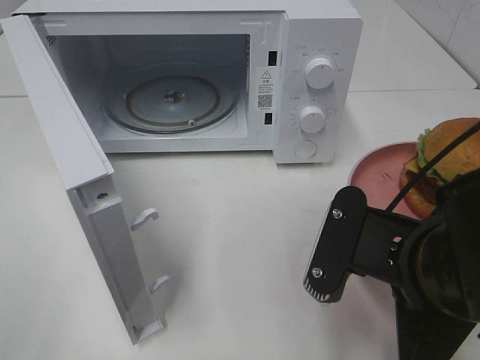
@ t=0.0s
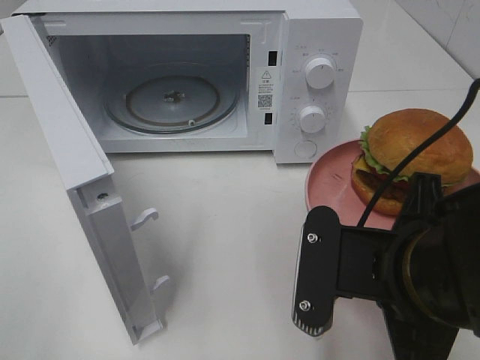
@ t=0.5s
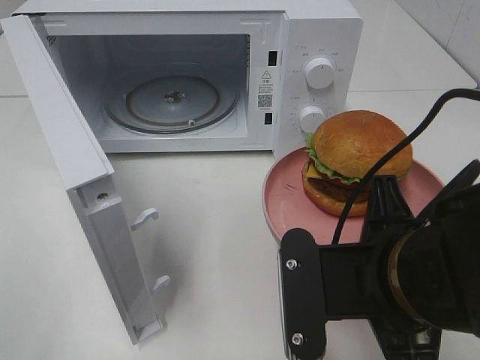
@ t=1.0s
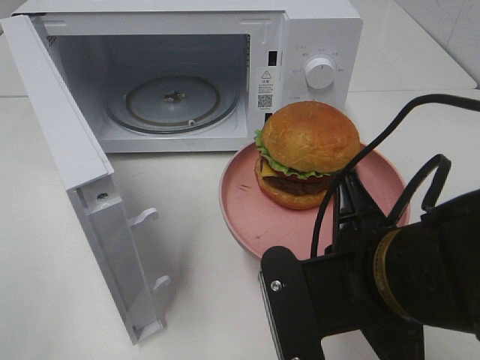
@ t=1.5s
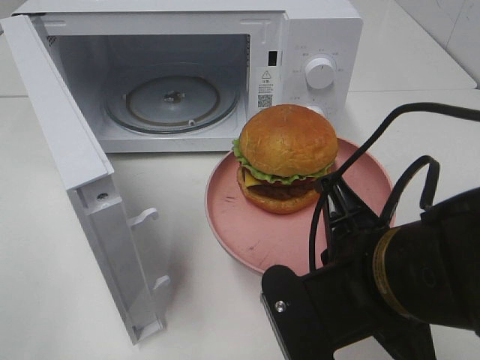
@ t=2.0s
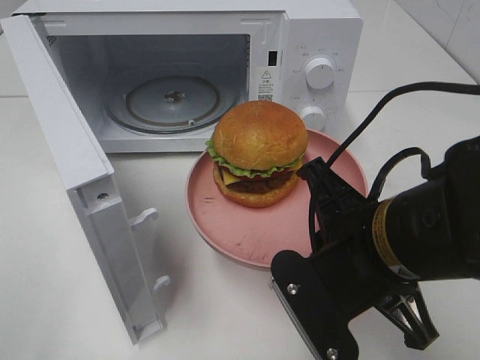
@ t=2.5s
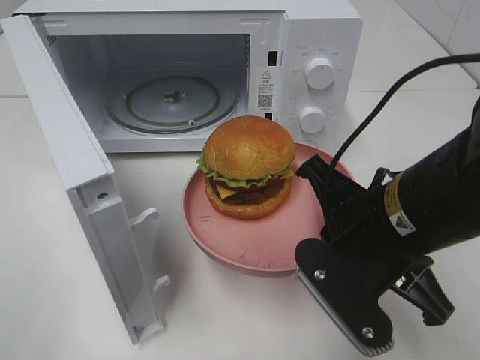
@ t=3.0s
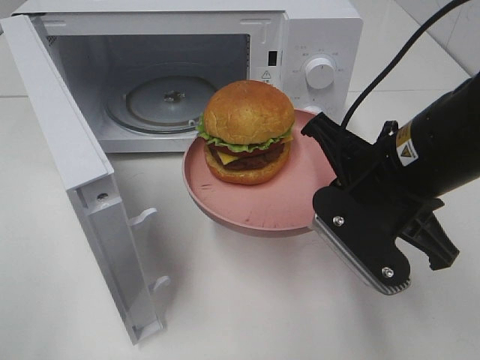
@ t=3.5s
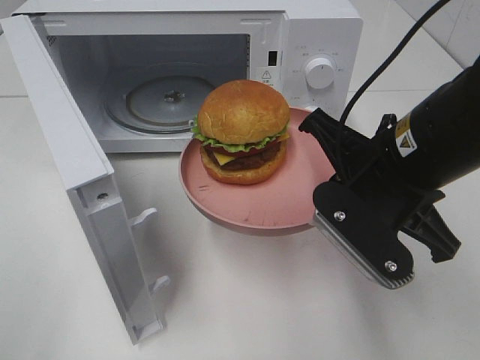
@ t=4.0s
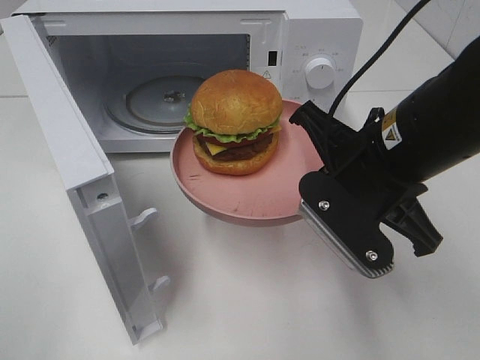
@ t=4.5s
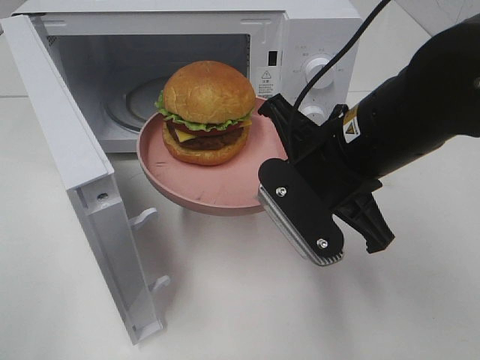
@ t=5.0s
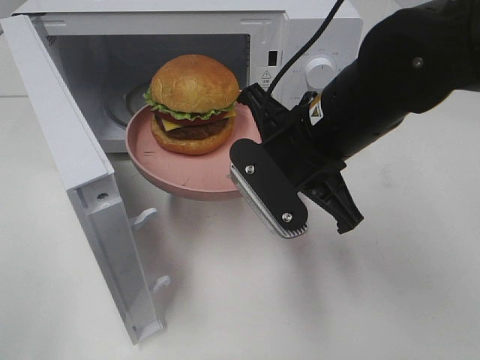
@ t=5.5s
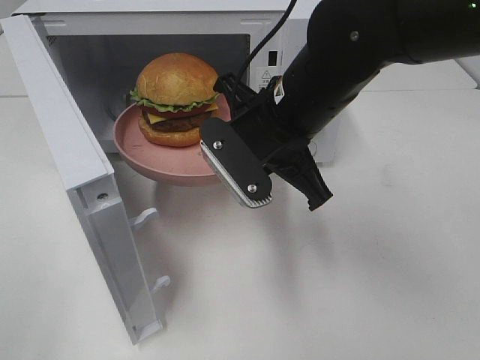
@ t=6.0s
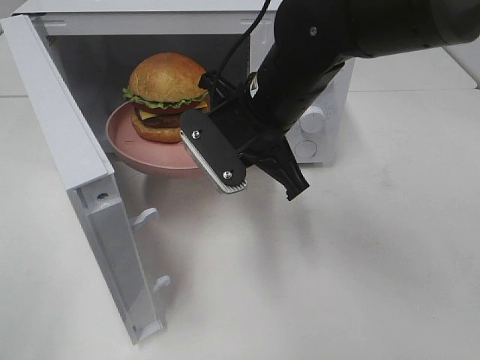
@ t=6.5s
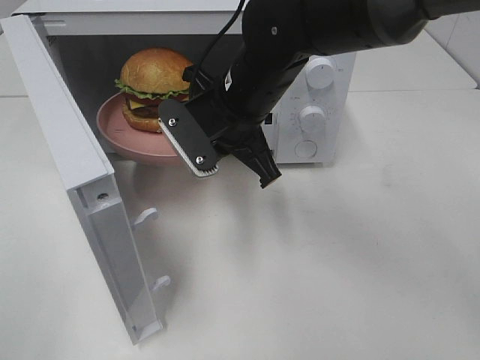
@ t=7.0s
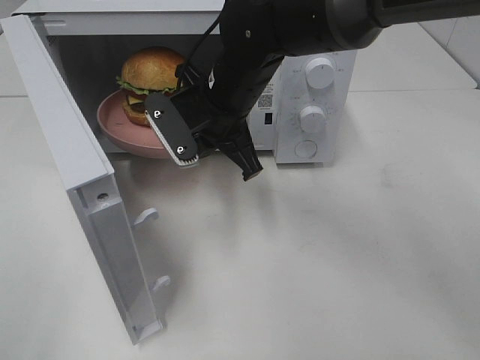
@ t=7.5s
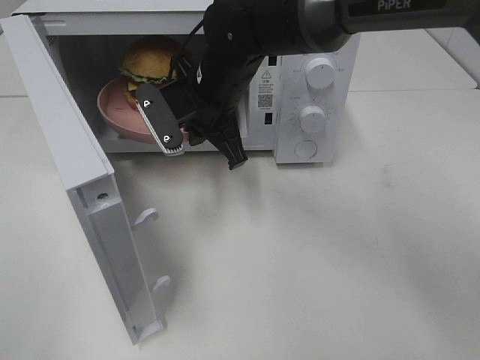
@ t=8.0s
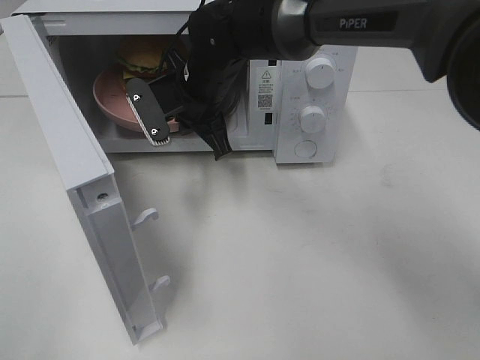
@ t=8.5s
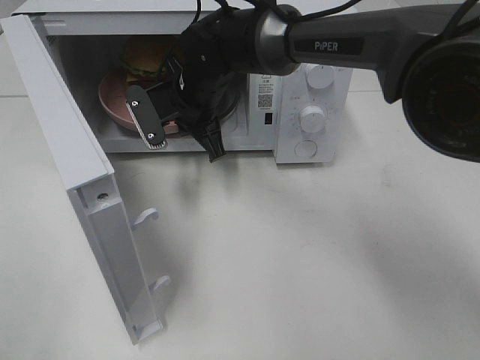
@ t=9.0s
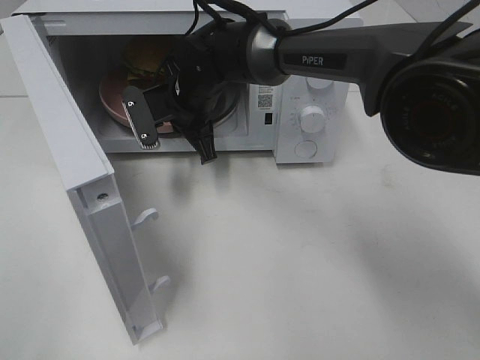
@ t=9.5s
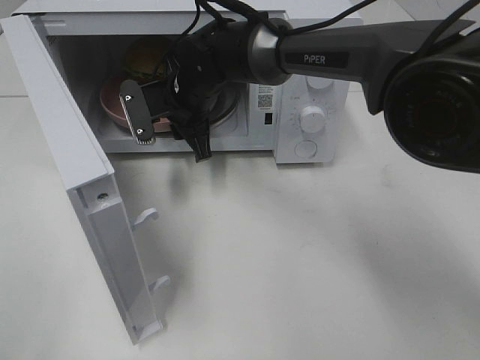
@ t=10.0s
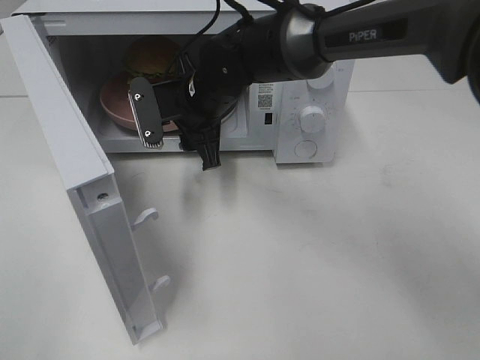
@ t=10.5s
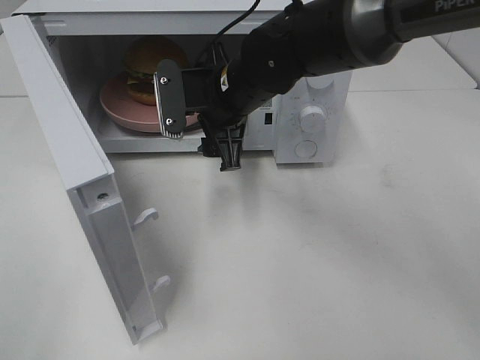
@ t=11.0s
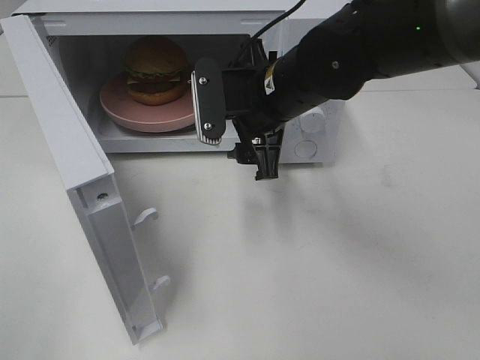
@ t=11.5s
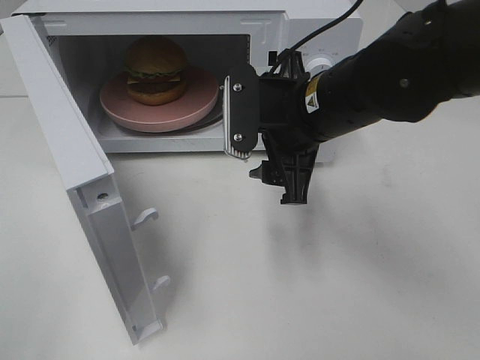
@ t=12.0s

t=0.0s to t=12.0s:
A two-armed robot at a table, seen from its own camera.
Task of the whole recording: Heat the burger.
Step, t=0.0s to t=10.0s: Right hand: place the plate in the microwave.
t=2.0s to t=4.0s: The right gripper travels forward by approximately 10 cm.
t=4.0s to t=6.0s: The right gripper is displaced to the left and forward by some 10 cm.
t=6.0s to t=8.0s: The right gripper travels forward and to the left by about 10 cm.
t=8.0s to t=10.0s: The right gripper ends up about 5 cm from where it was, and opens up.
t=10.0s to t=12.0s: The right gripper is displaced backward, to the right and upward by some 20 cm, and opens its fingers.

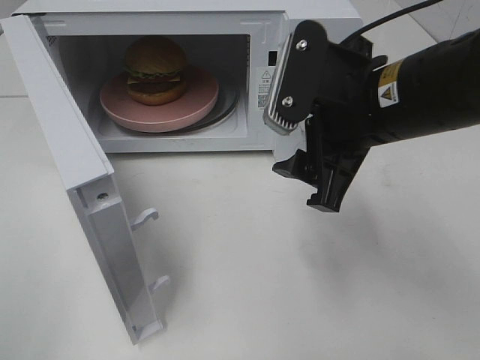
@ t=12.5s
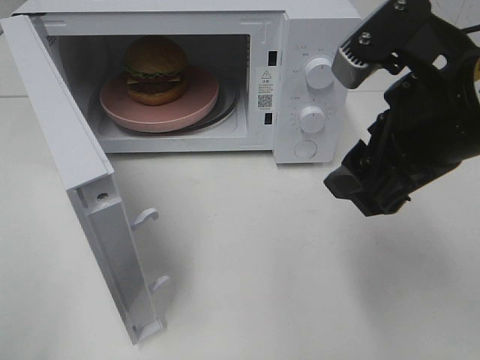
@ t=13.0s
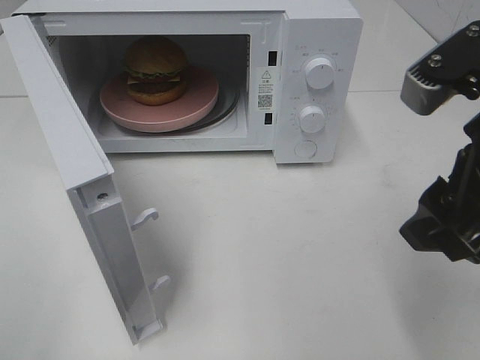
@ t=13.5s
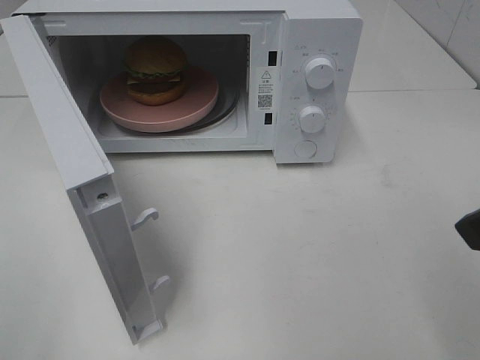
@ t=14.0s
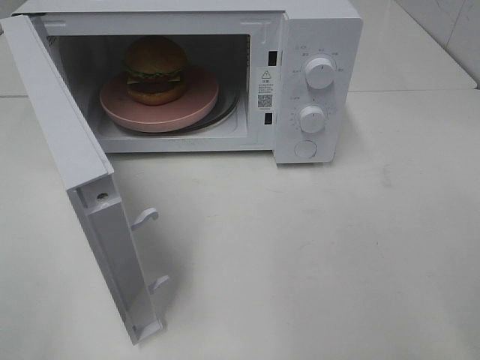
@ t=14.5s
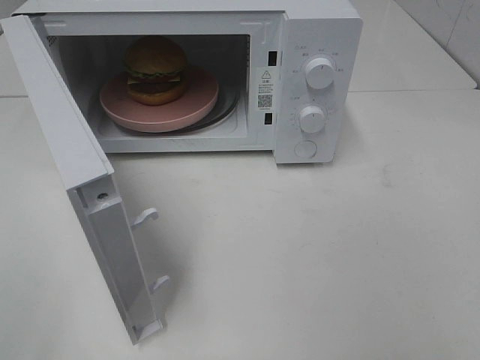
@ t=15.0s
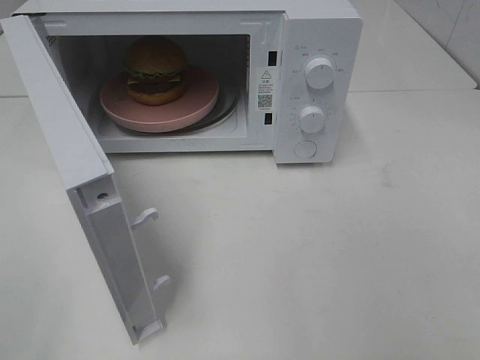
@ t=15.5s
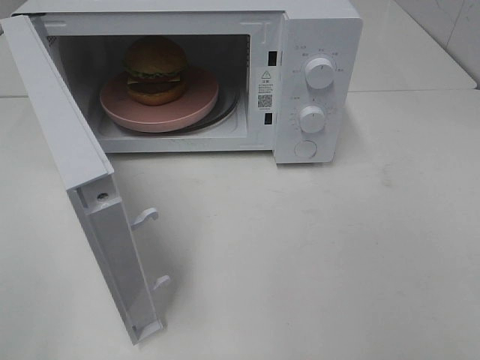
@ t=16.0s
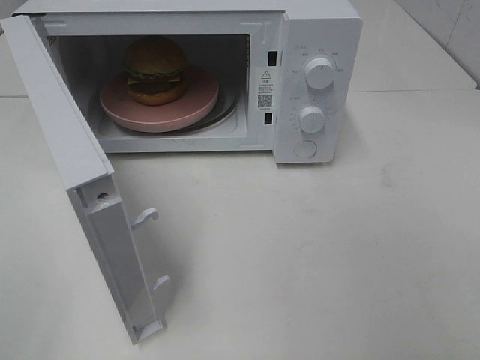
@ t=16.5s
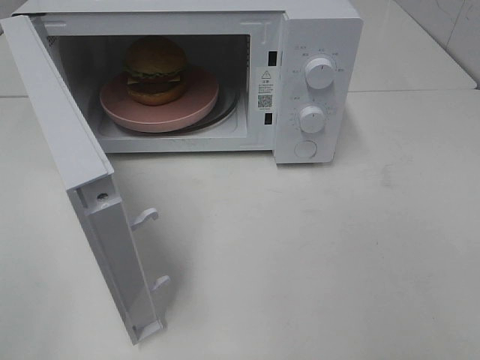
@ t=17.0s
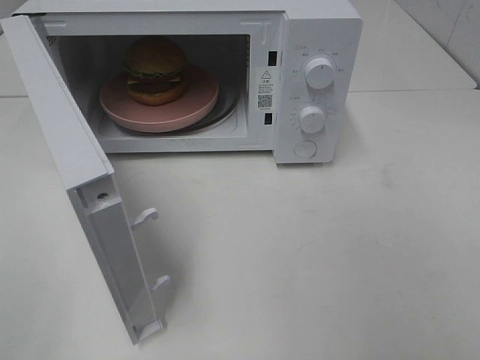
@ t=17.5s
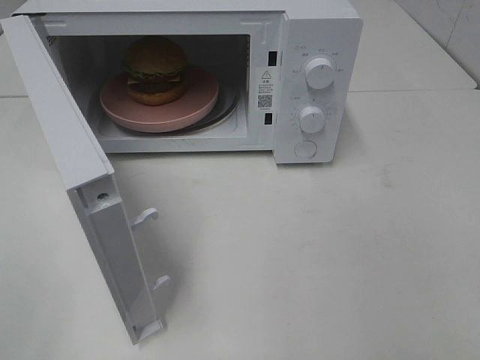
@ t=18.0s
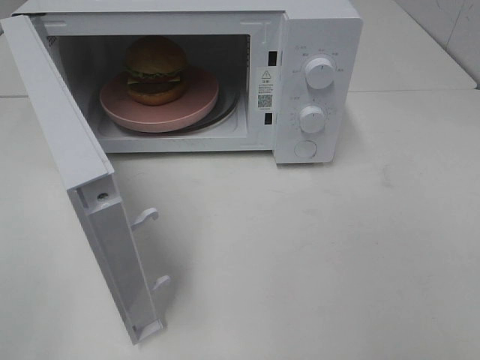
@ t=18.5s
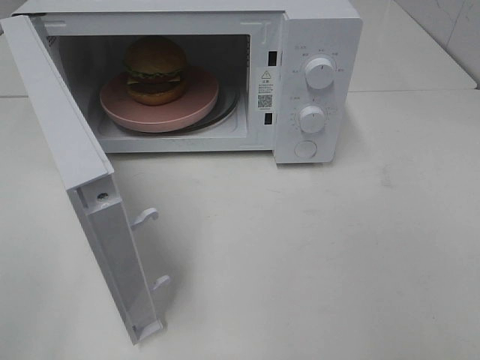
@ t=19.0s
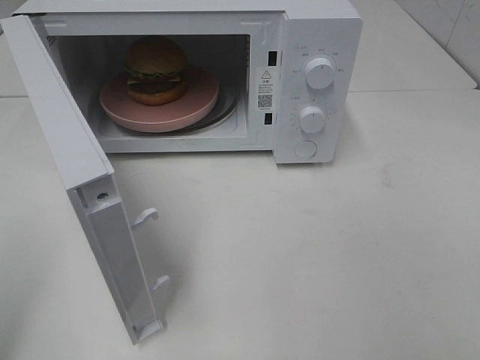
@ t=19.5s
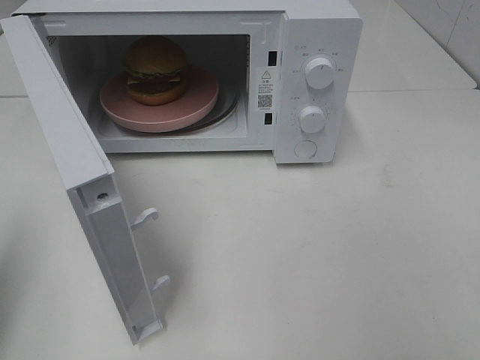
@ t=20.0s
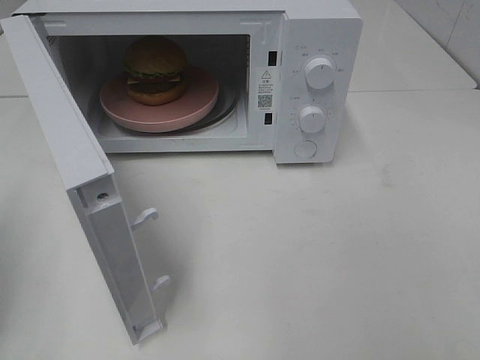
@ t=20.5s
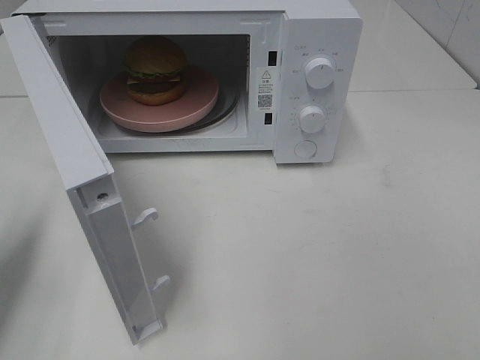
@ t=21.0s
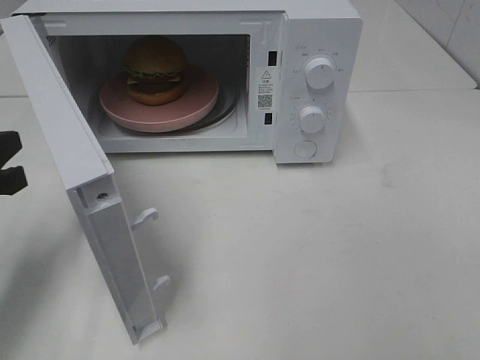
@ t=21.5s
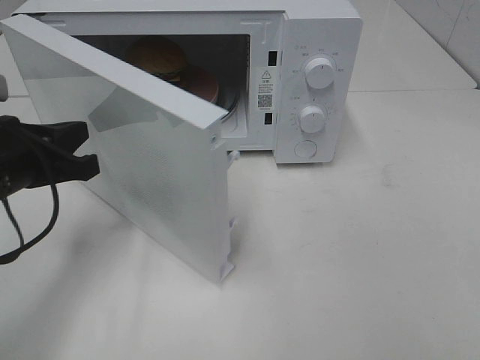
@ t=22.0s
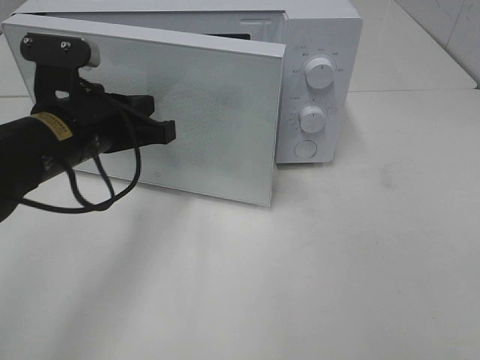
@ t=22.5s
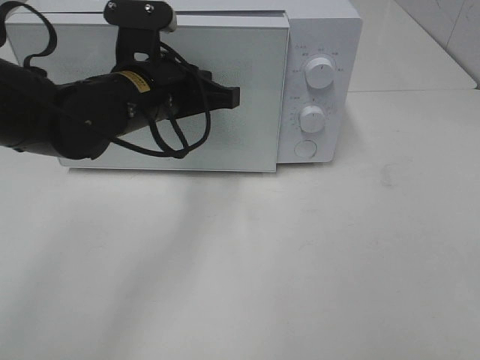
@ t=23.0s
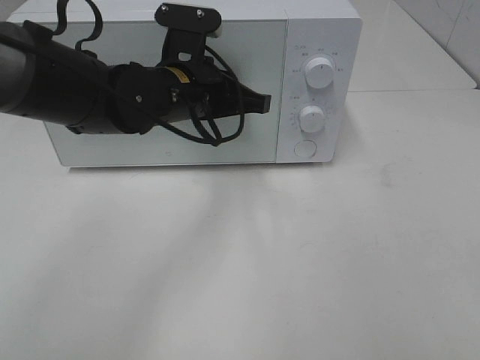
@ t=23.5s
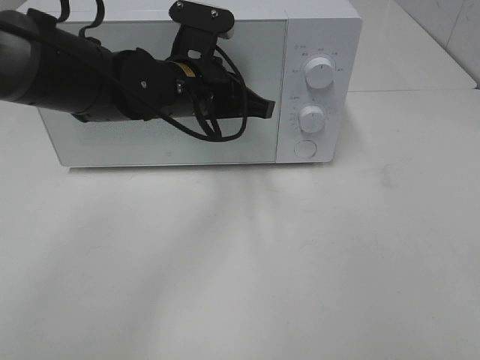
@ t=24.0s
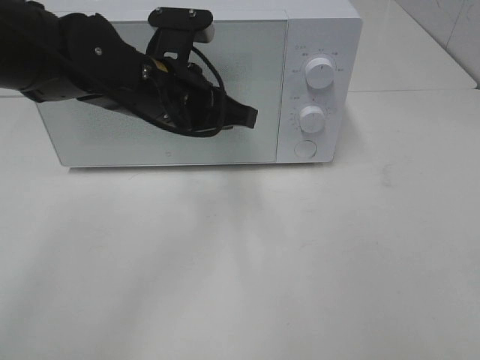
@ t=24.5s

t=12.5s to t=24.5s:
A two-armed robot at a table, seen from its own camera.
Task of the whole recording: Heat the burger.
t=12.5s to t=14.5s: The right gripper shifts about 20 cm to the right, backward and upward.
t=16.5s to t=18.5s: Both grippers stay about where they are.
t=20.5s to t=22.5s: The left gripper goes some 25 cm to the right and forward.
t=22.5s to t=24.5s: The left gripper shifts approximately 10 cm to the right.

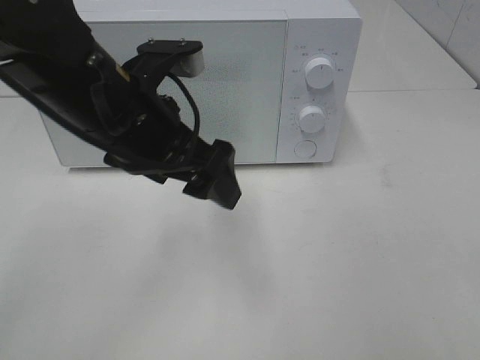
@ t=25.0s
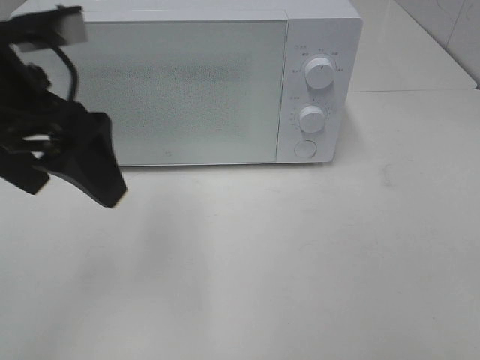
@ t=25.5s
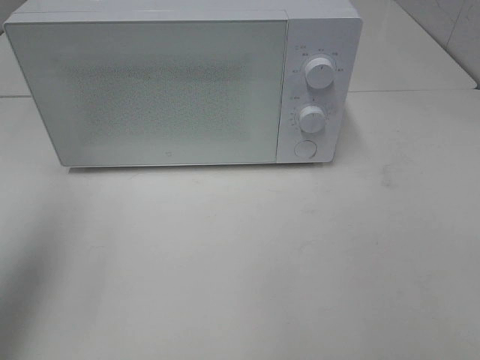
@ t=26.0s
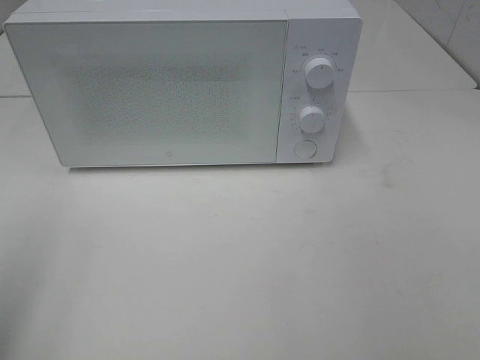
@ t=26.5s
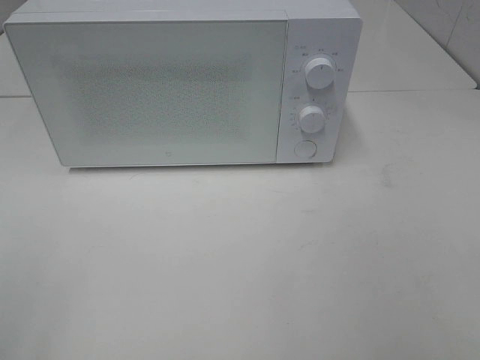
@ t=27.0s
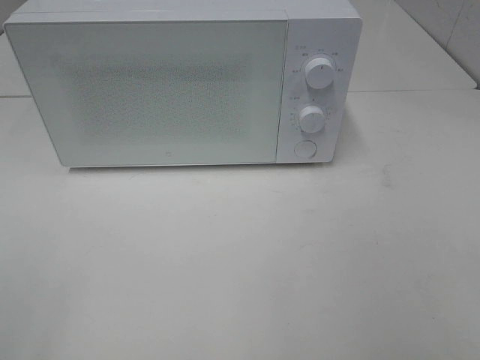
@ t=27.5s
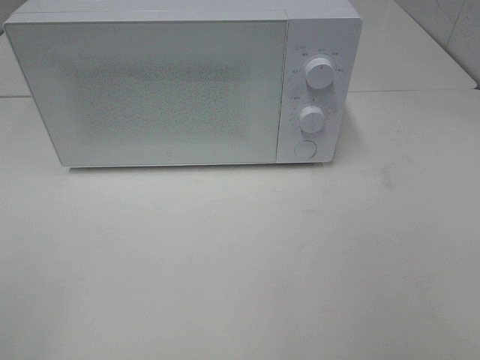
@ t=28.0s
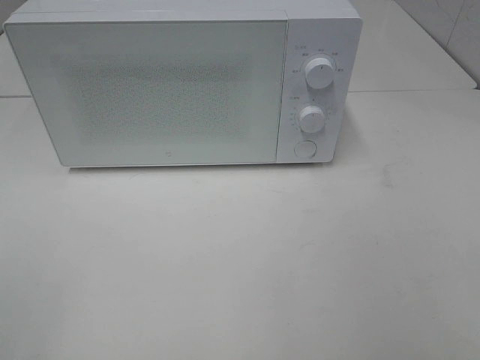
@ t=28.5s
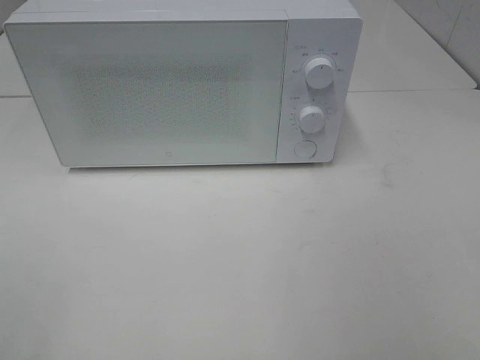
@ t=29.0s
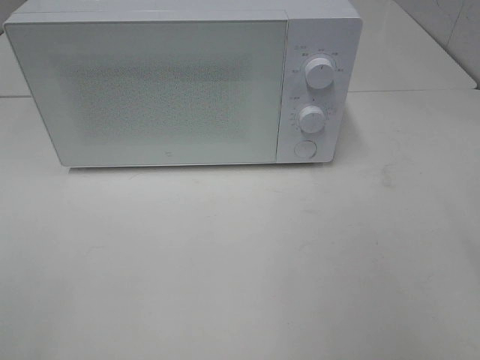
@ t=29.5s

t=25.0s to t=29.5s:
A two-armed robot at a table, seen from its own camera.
Task of the whole recording: Heat the burger.
t=25.0s to t=27.0s: The left gripper travels backward and to the left by approximately 35 cm.
